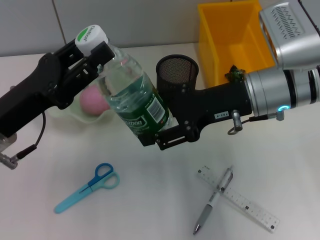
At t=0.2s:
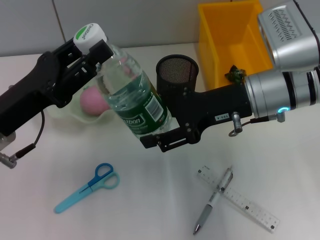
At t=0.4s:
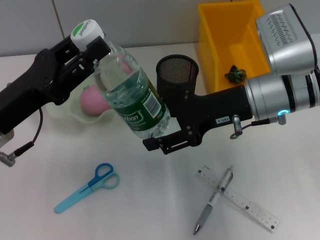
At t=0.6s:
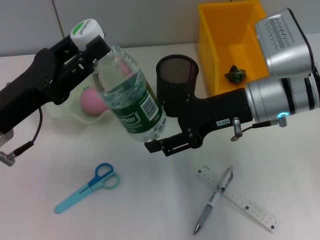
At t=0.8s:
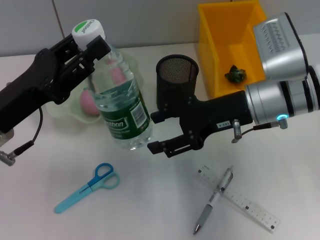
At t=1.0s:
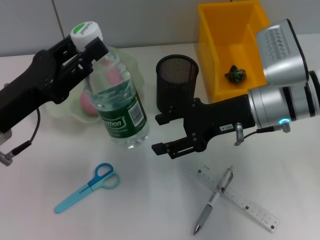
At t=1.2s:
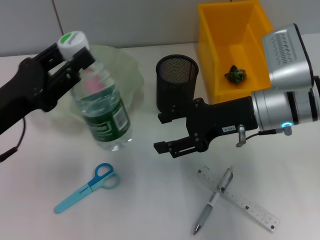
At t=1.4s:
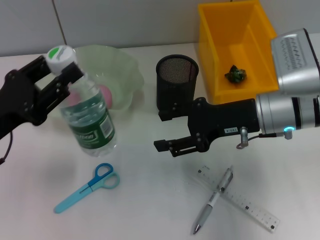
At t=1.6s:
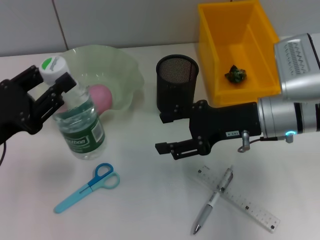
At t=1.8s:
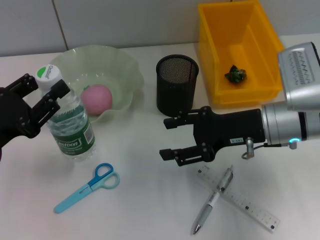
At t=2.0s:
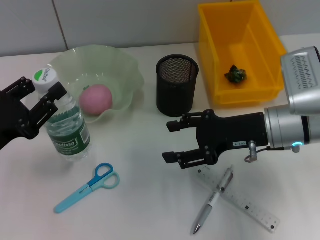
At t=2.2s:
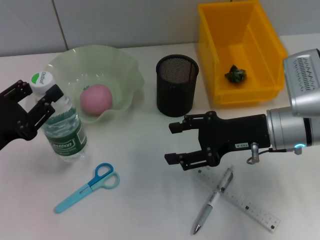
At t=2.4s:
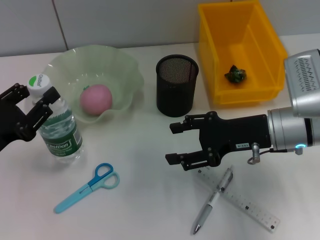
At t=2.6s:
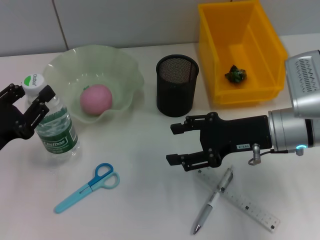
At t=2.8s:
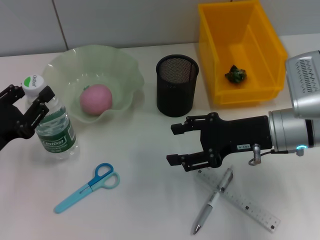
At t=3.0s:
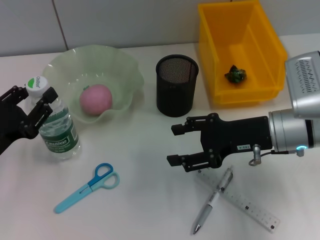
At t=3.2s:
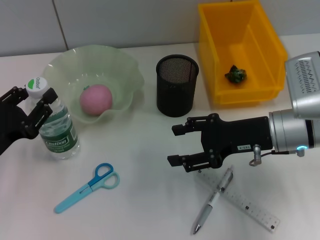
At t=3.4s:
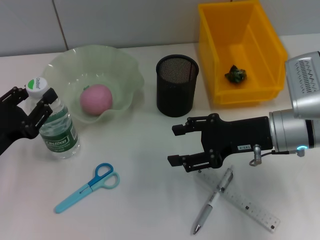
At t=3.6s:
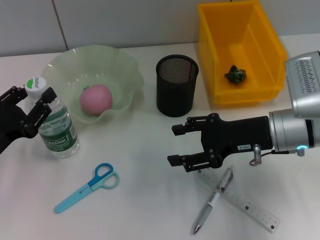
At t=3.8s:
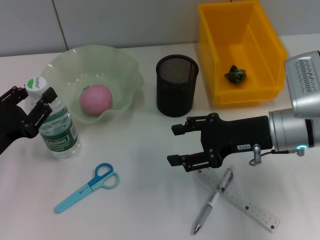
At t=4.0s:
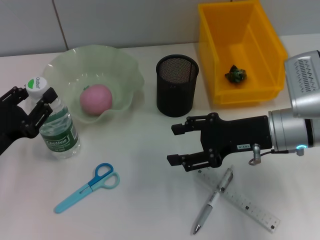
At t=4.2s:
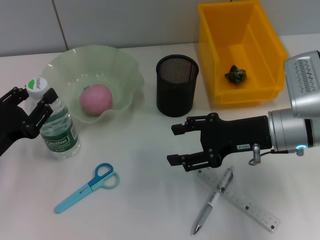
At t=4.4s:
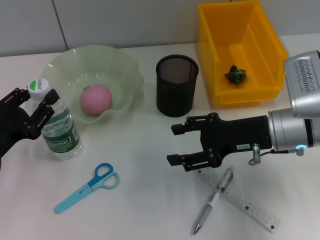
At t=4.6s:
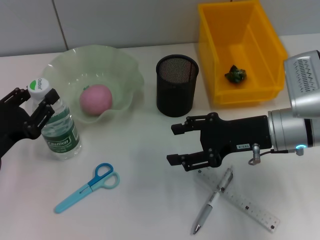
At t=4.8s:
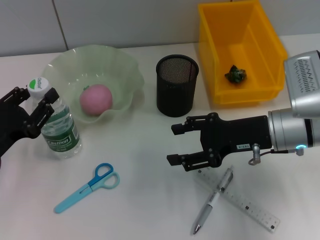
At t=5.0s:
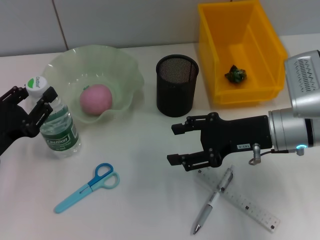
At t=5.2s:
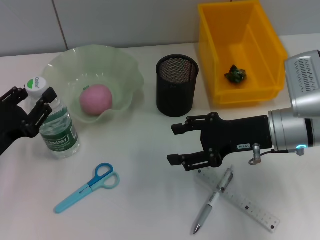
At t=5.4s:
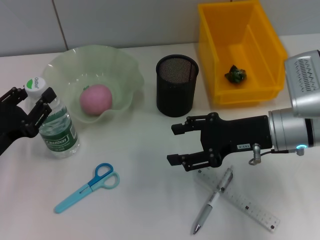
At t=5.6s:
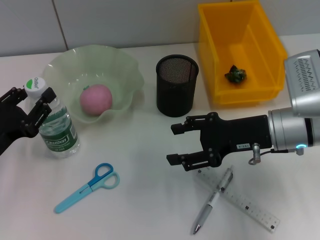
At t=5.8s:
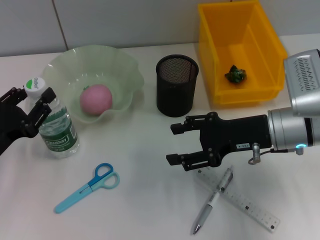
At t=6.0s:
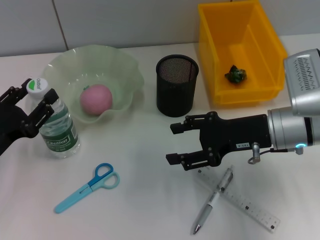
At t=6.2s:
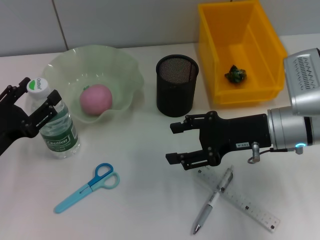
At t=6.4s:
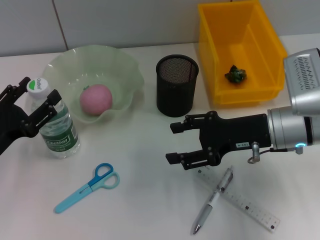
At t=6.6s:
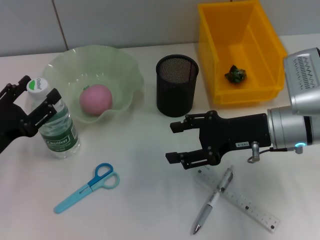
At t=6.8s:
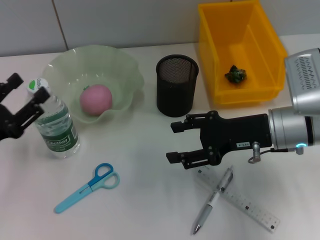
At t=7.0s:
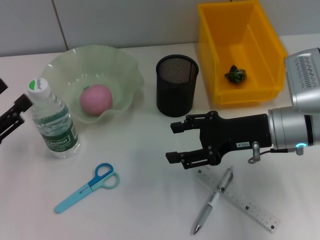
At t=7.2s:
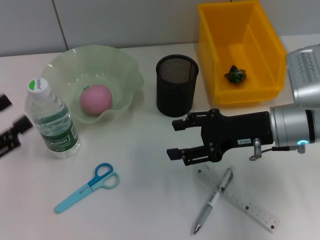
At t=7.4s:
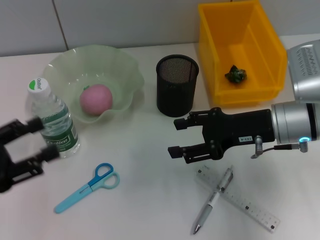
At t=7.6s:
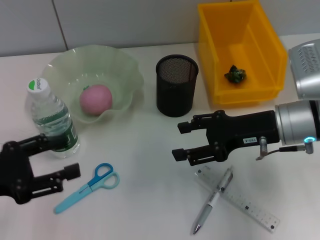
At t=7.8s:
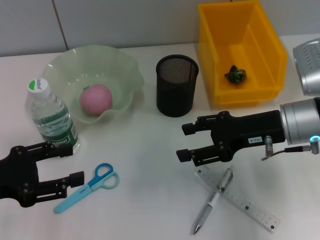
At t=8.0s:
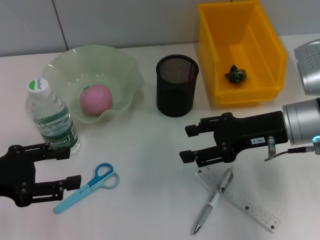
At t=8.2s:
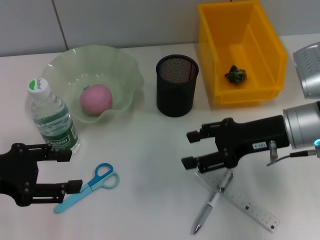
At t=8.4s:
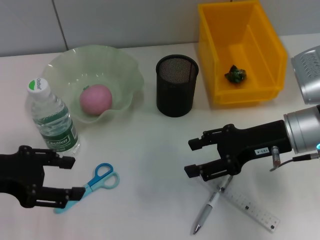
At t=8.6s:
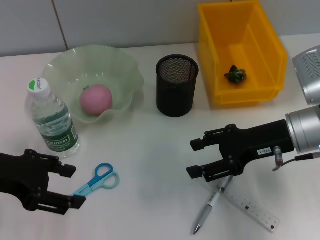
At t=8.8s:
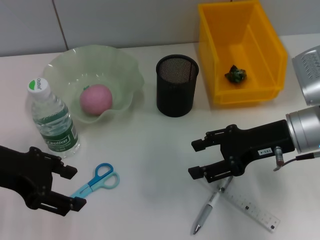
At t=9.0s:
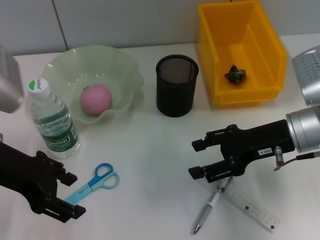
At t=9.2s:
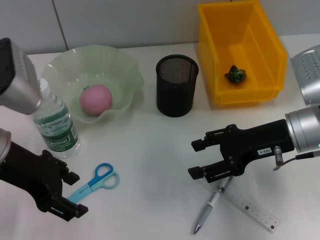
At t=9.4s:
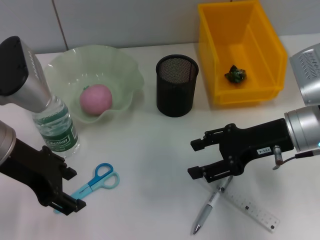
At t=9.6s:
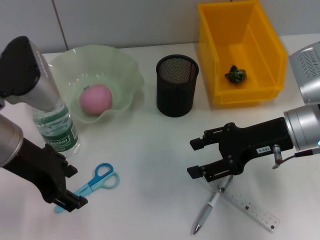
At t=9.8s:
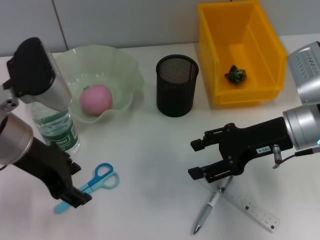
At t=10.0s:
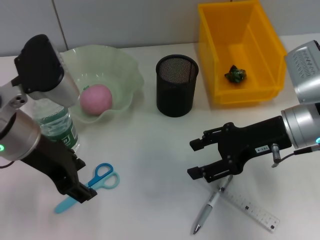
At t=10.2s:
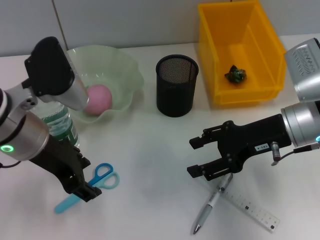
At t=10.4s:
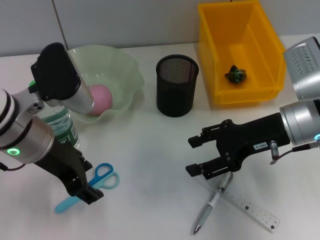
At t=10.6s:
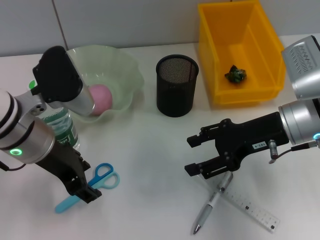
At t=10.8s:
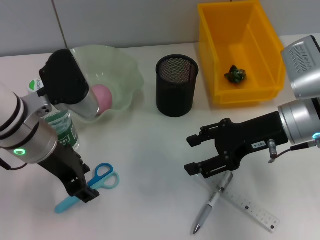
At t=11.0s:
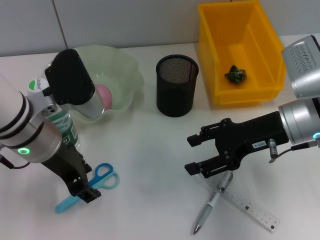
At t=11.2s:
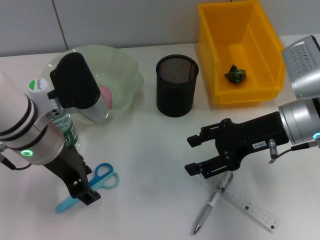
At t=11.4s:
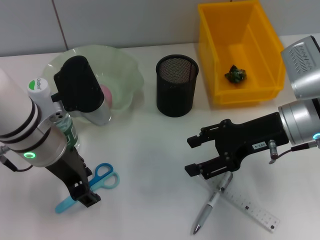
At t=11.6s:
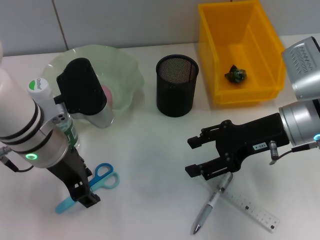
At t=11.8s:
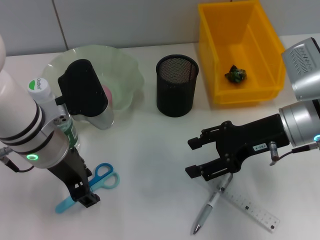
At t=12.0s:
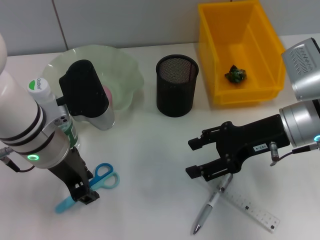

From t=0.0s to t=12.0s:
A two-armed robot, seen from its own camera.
Step, from t=1.0s to t=6.4s: Place the water bottle on the table with the left hand.
From t=0.0s to t=1.6s: The left gripper ends up some 5 cm from where it was.
From t=3.0s to t=6.0s: Neither gripper changes place.
From t=6.0s to t=7.6s: The left gripper shifts about 5 cm upward, and opens.
From t=7.6s to t=9.0s: The left gripper travels to the right, upward and forward by roughly 10 cm.
From t=9.0s to t=10.4s: The left gripper goes some 5 cm to the right.
From t=10.4s to t=12.0s: The grippers stay close to where they were, moving slightly.

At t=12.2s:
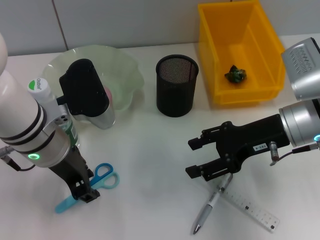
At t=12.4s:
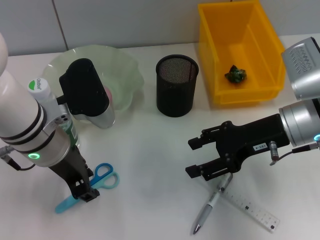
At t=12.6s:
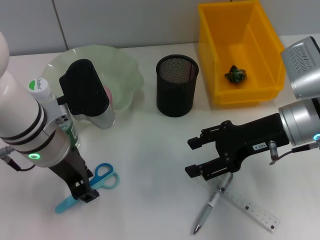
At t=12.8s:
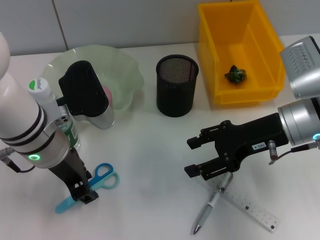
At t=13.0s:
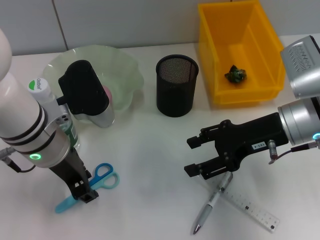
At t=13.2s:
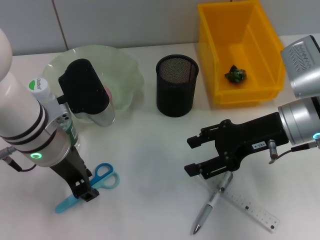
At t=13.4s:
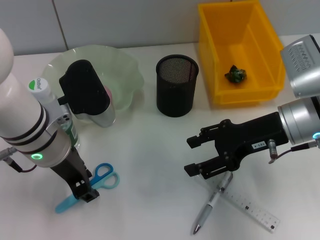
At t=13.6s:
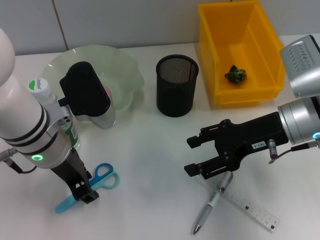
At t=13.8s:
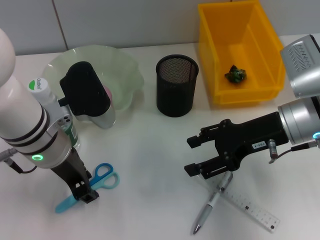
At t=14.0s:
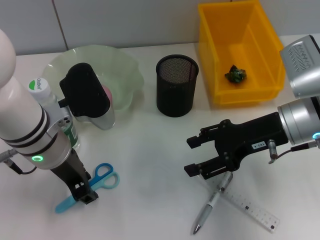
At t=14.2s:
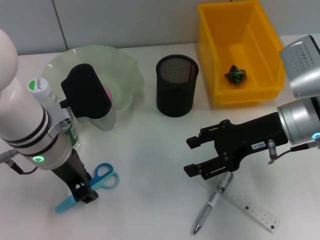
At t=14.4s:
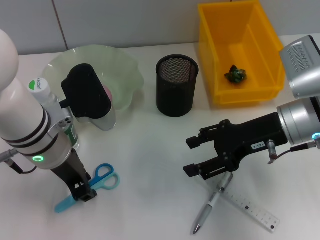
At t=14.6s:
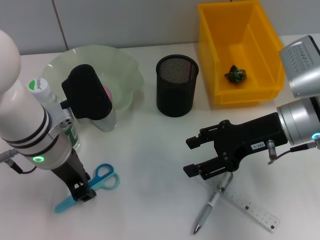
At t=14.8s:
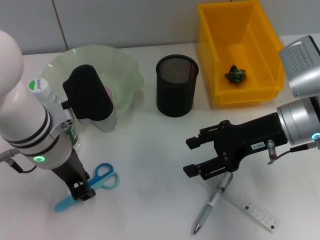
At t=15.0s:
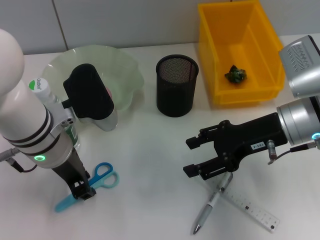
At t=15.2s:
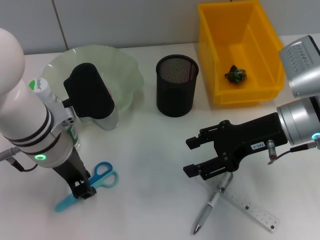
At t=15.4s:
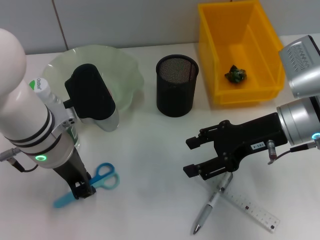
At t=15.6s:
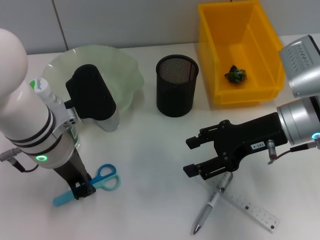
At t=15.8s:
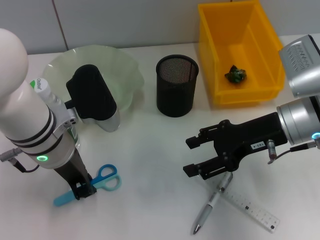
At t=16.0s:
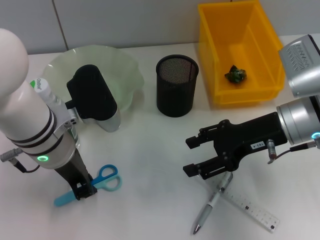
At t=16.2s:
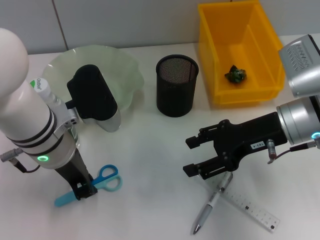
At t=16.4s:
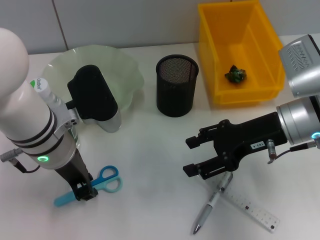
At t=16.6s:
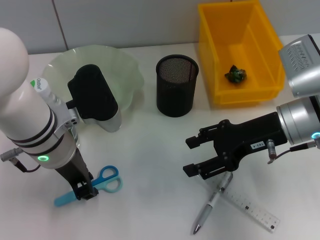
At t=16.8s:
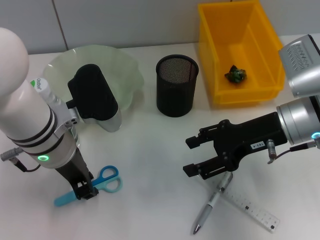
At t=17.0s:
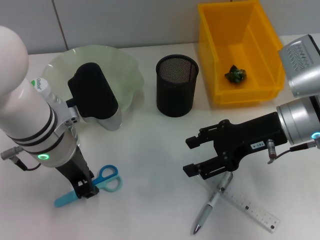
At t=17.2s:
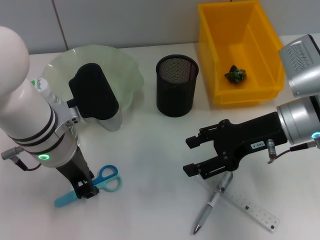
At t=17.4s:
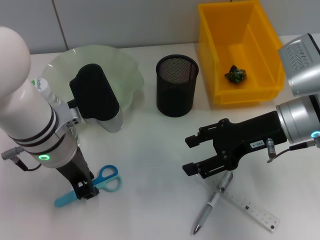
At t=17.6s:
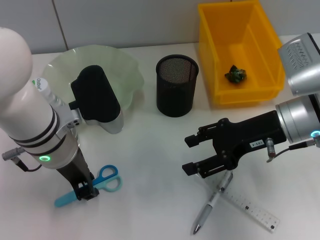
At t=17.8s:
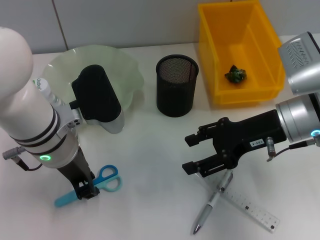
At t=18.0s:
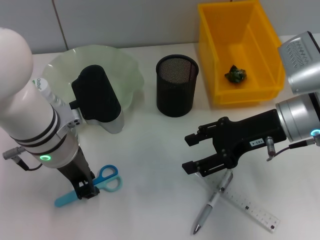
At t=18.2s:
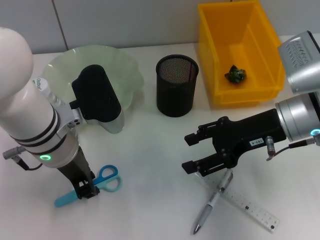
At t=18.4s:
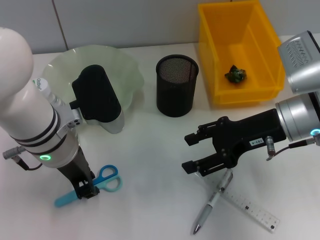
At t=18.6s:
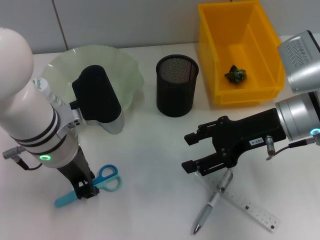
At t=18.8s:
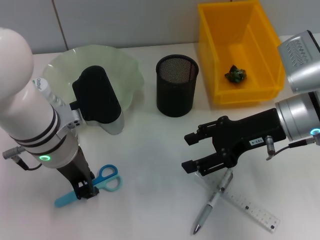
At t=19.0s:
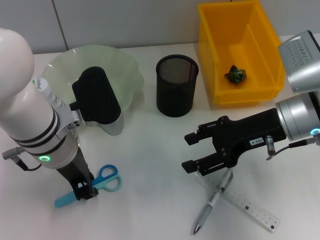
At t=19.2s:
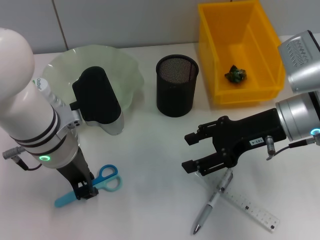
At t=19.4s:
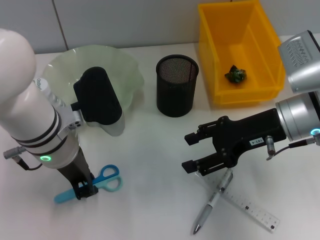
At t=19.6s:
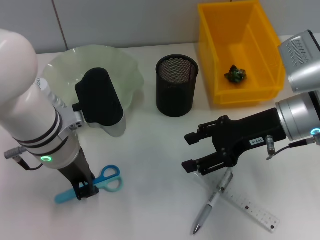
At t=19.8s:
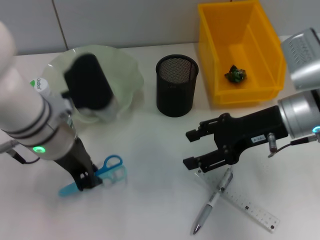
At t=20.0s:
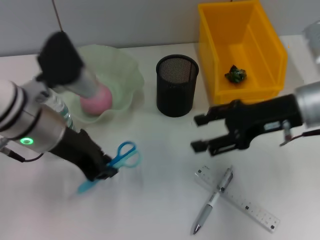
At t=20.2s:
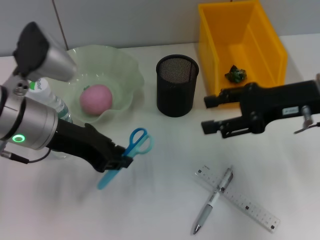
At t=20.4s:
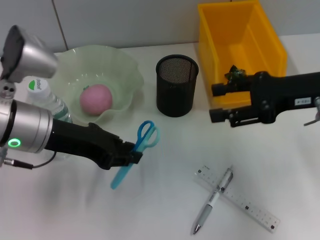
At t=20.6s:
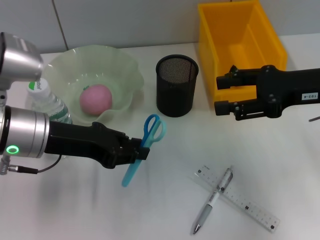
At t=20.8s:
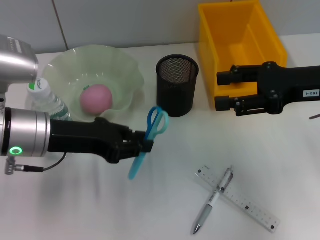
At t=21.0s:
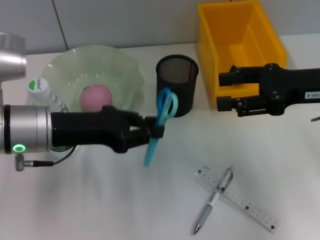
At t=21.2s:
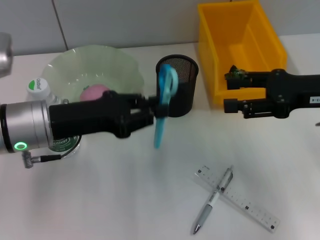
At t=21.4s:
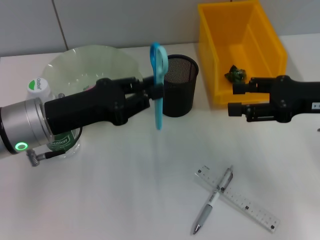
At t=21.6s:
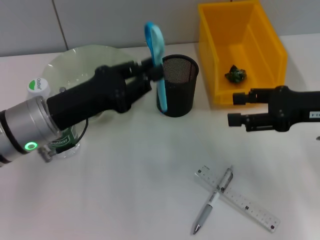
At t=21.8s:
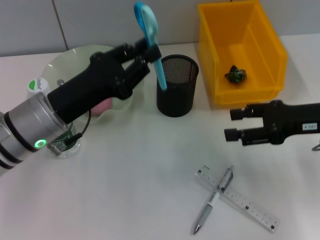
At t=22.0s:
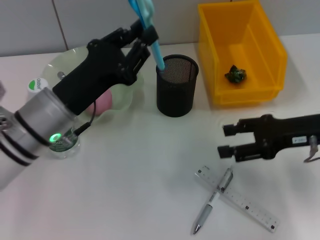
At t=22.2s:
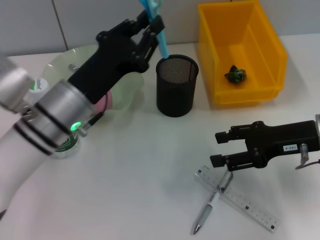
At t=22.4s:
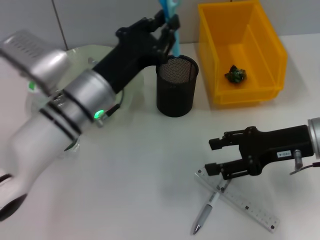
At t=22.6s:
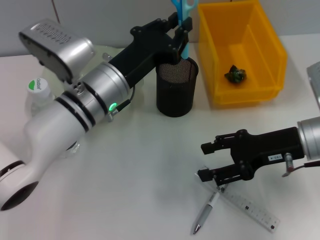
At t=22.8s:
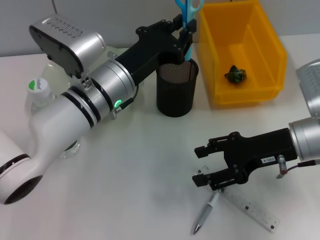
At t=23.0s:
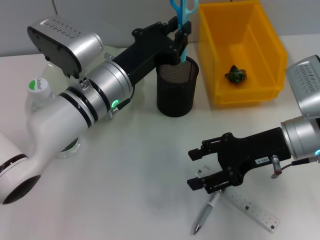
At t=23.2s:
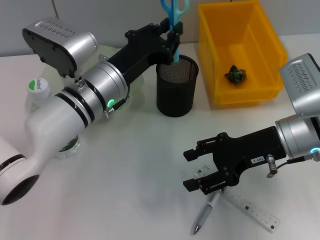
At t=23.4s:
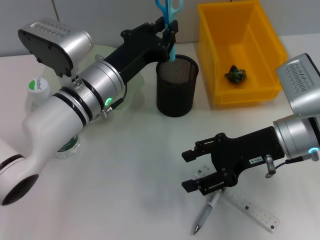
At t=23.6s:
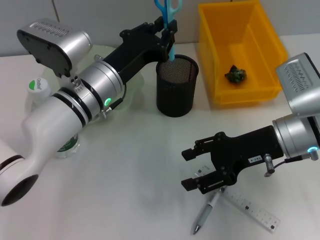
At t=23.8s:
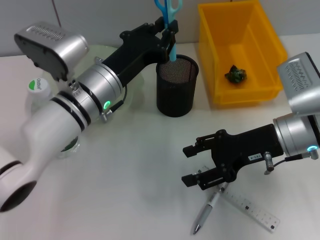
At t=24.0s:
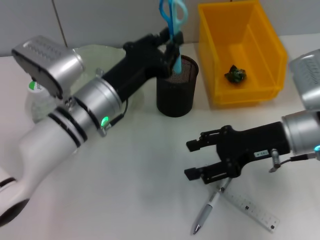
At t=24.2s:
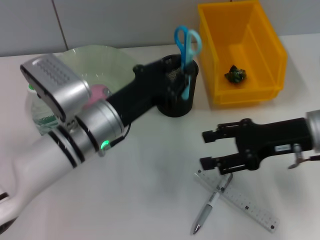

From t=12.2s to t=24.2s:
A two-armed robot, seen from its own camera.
Step, from t=12.2s to t=19.2s: Grab the blue scissors with the left hand.
From t=12.2s to t=15.2s: Neither gripper changes place.
From t=15.2s to t=18.2s: Both grippers stay about where they are.
From t=18.2s to t=19.8s: The grippers stay close to where they were, moving slightly.
From t=19.8s to t=21.2s: The right gripper moves to the right, some 5 cm. The left gripper ends up approximately 5 cm from where it was.
From t=21.2s to t=22.6s: The left gripper heads to the right, covering some 10 cm; the right gripper moves downward, some 5 cm.
From t=22.6s to t=24.2s: The left gripper ends up approximately 5 cm from where it was.
